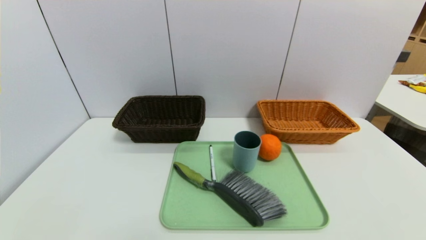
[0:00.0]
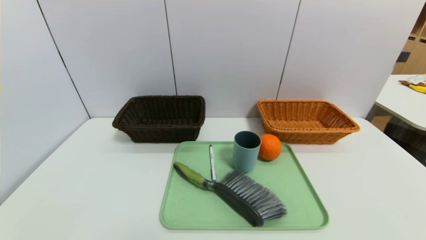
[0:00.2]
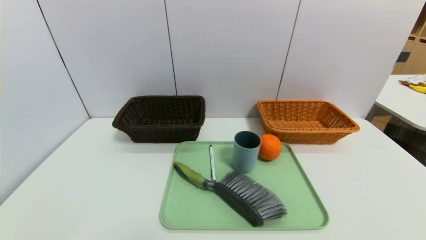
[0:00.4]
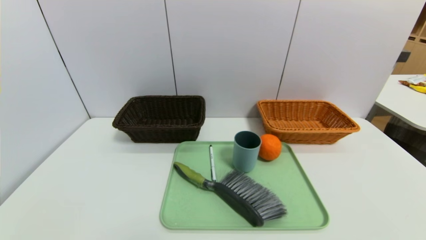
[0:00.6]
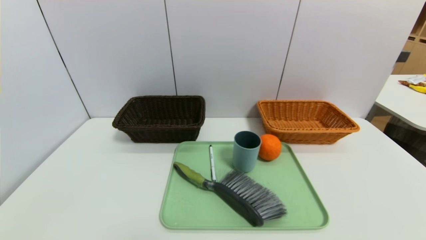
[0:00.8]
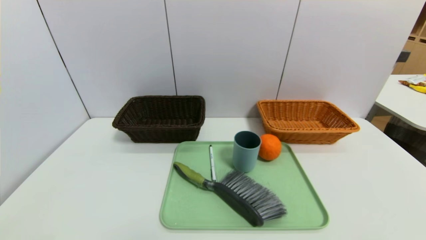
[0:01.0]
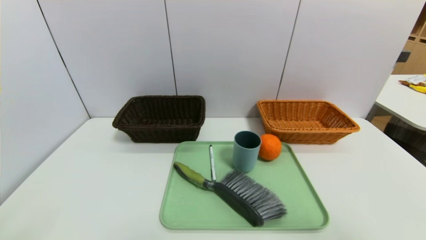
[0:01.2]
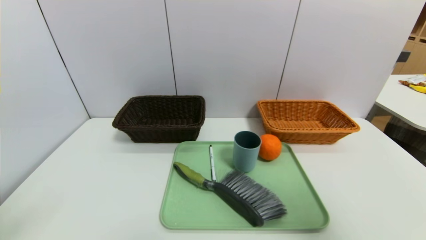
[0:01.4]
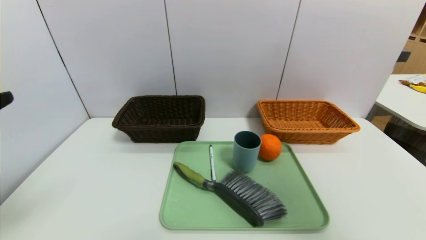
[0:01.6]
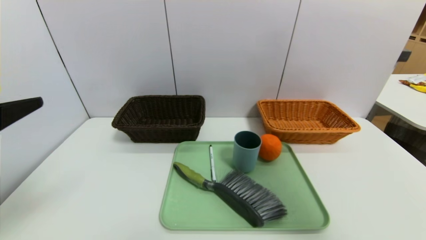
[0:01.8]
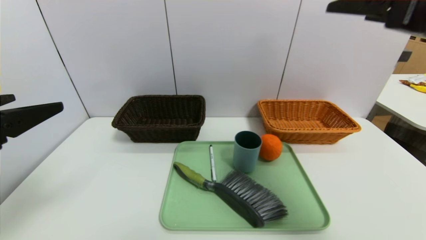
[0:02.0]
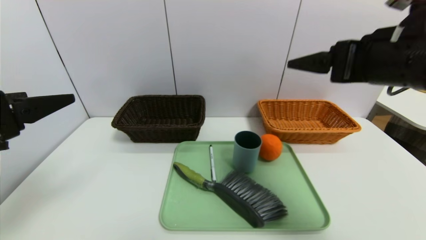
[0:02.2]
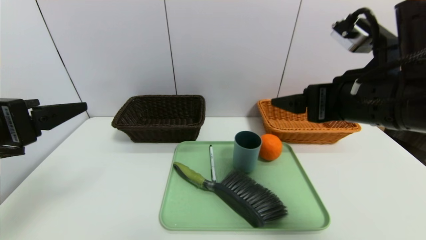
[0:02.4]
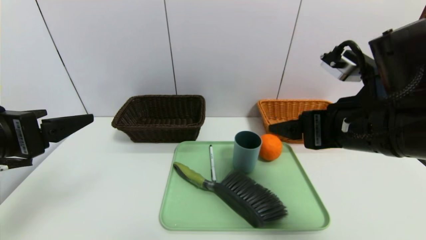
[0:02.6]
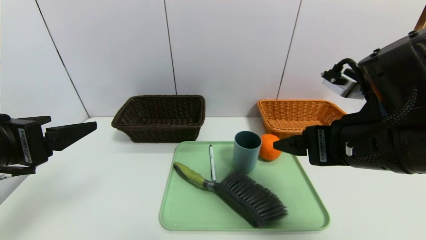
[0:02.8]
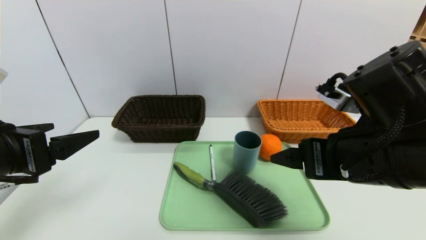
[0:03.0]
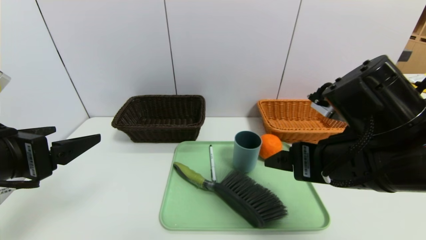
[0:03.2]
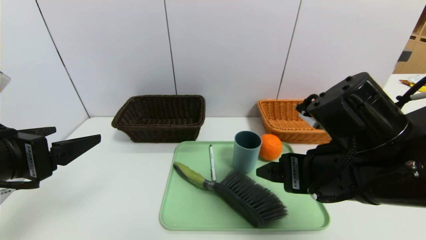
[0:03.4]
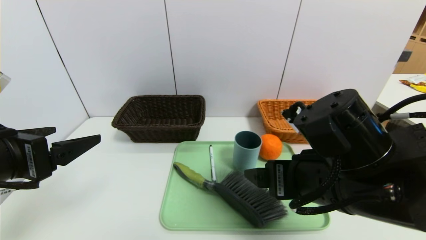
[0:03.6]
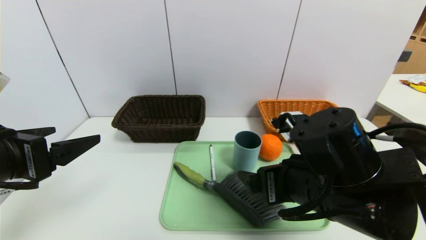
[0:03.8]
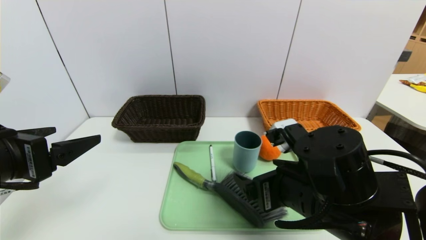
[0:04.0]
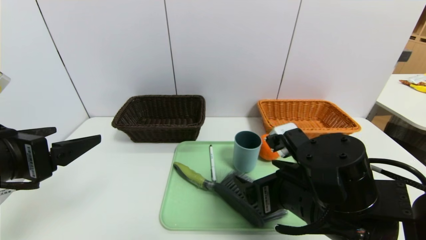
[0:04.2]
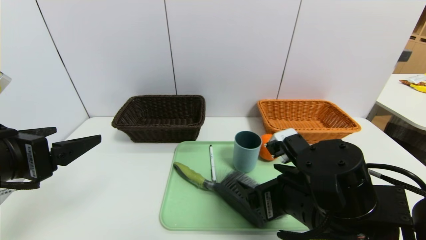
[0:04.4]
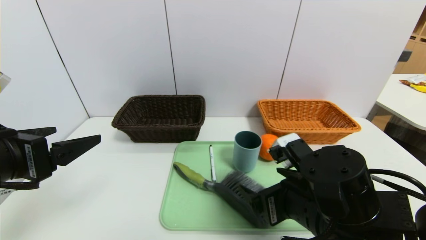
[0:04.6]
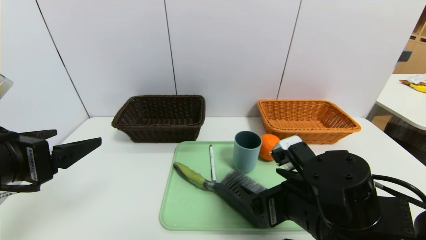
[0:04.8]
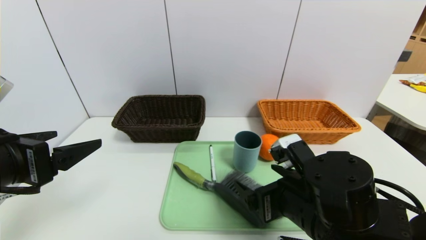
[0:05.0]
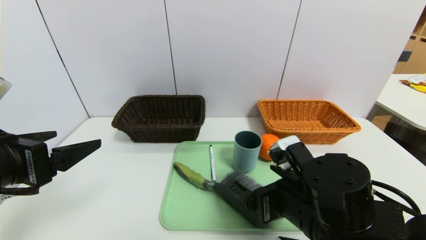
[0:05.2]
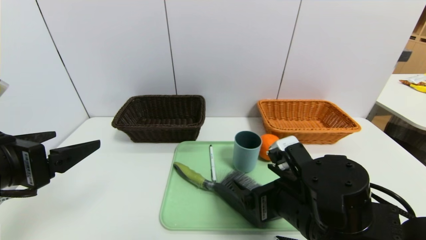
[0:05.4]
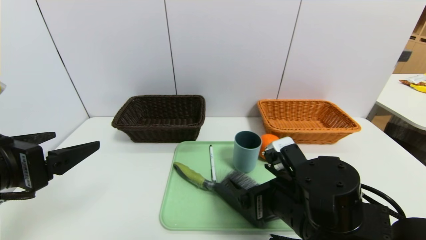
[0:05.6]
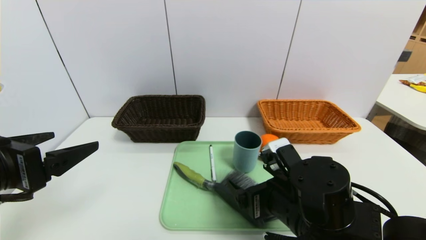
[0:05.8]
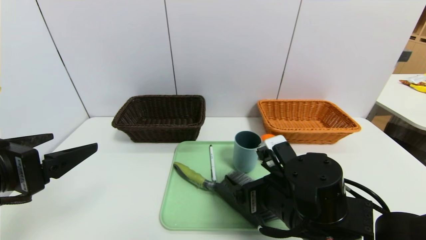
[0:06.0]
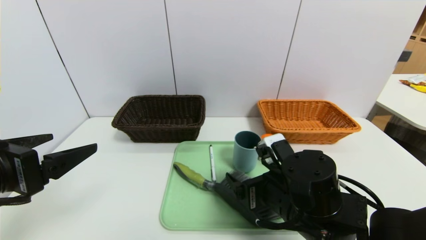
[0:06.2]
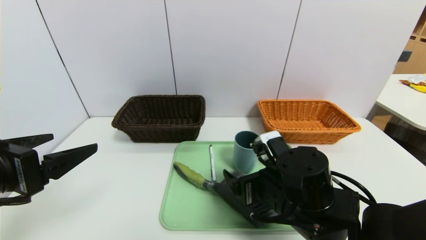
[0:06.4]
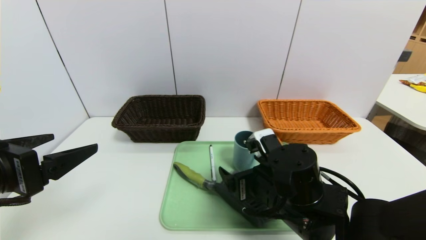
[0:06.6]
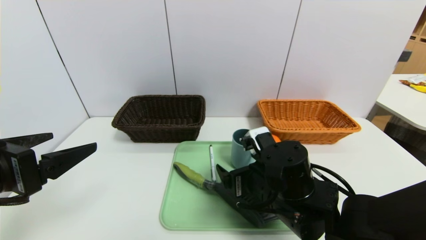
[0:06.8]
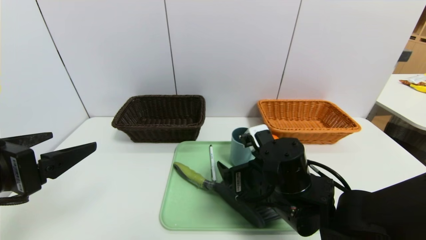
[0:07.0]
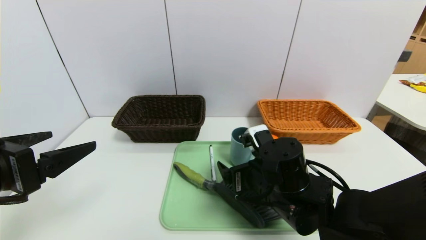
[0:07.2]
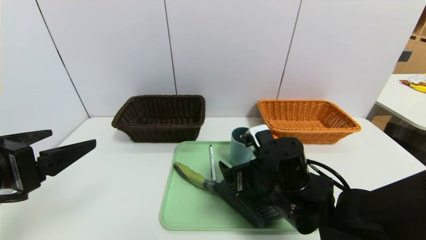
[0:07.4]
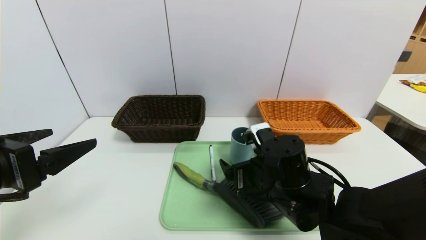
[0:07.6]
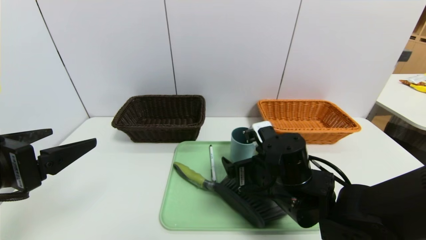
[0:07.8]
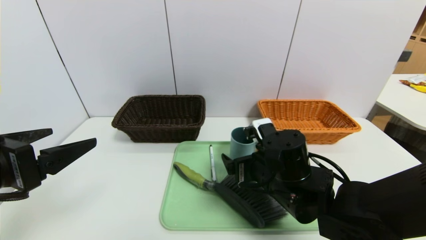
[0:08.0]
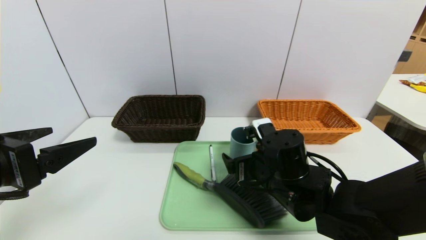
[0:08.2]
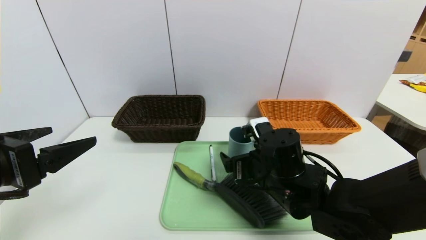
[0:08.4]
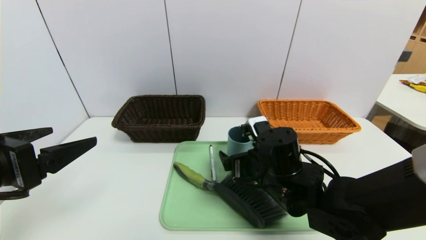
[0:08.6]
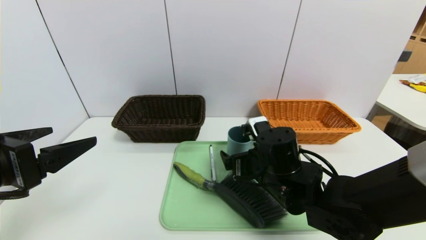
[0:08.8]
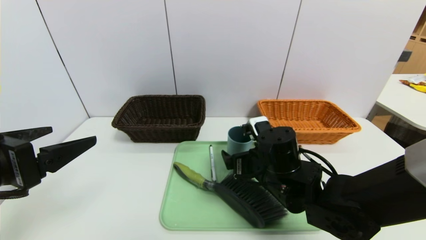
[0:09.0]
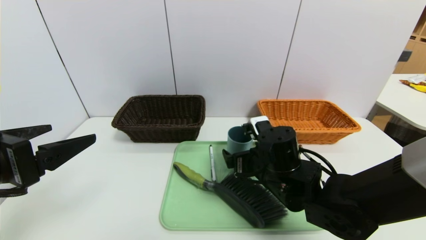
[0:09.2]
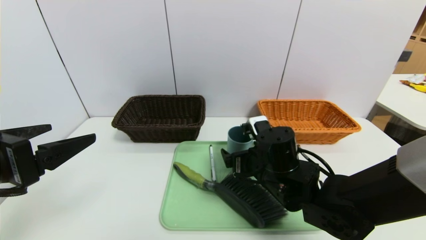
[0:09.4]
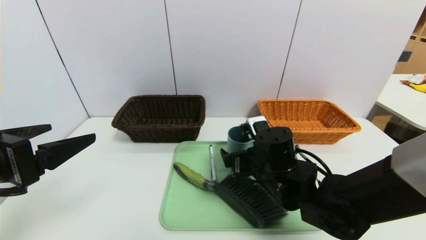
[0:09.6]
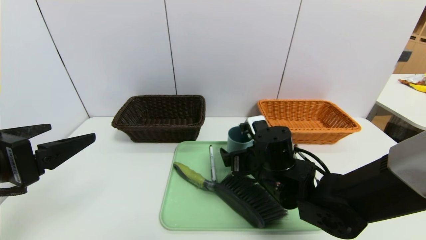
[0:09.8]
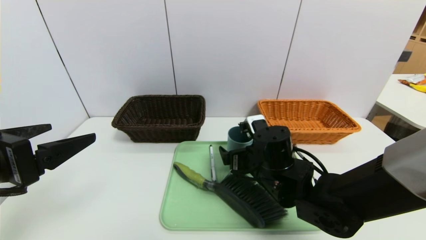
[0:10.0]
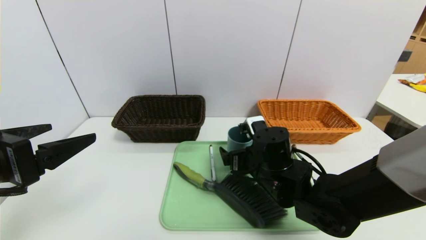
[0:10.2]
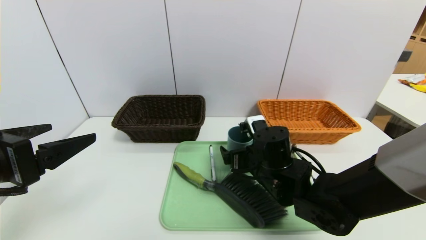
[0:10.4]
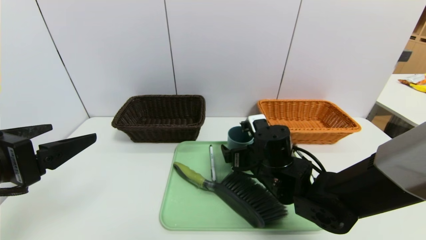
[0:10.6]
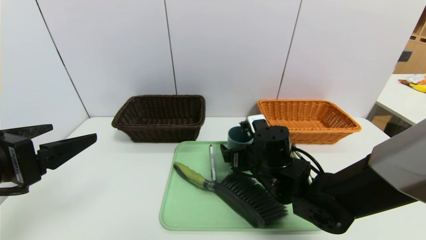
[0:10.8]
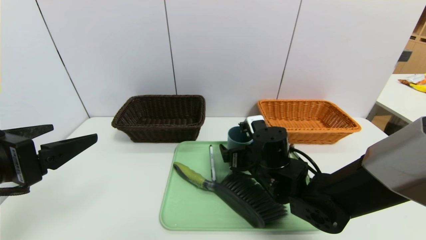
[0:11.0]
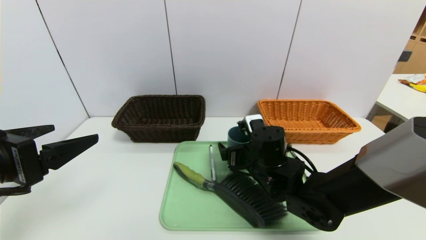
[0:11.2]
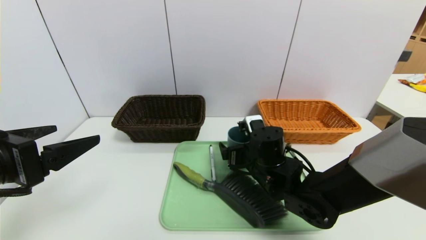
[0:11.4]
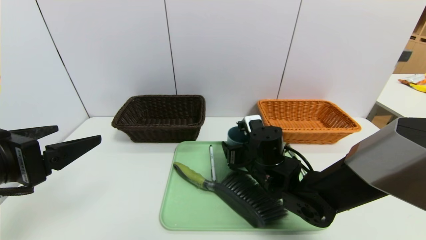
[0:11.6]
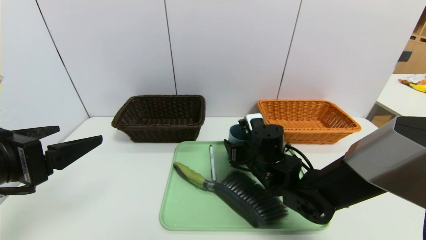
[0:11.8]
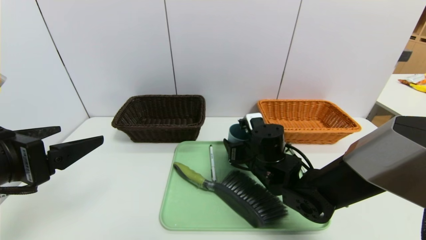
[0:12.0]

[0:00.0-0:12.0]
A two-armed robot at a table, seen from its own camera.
Task of the whole recording: place the food in the right basket with the right gripper, and place the non food items in the left basket with the left gripper.
0:00.0 to 0:01.6: The left gripper moves upward and forward, roughly 25 cm, while the right gripper shifts approximately 35 cm upward.
0:01.6 to 0:03.0: The left gripper is displaced forward by approximately 5 cm, while the right gripper travels downward and to the left by some 20 cm.
0:03.0 to 0:04.4: The right gripper moves downward, approximately 10 cm.
0:04.4 to 0:06.0: The grippers make only small movements.
0:06.0 to 0:07.6: The grippers move only a little.
0:07.6 to 0:10.4: There are only small adjustments of the grippers.
0:10.4 to 0:12.0: The right gripper closes.

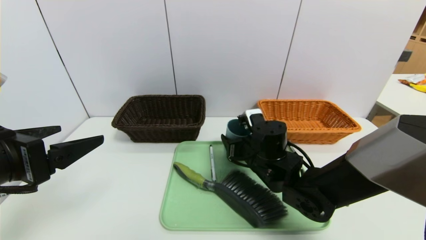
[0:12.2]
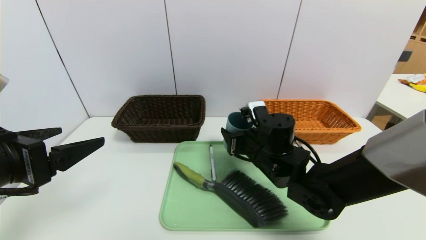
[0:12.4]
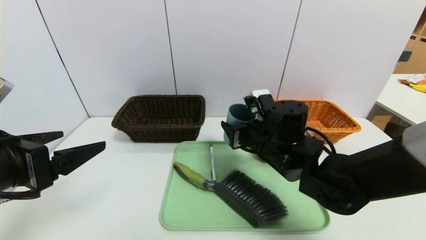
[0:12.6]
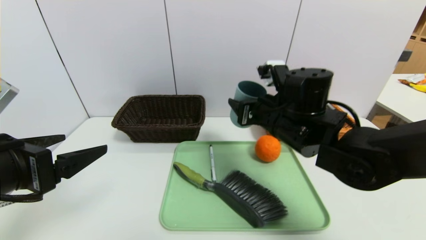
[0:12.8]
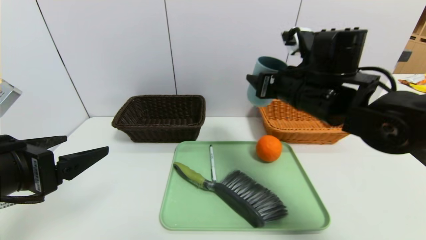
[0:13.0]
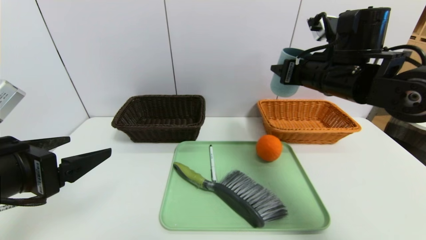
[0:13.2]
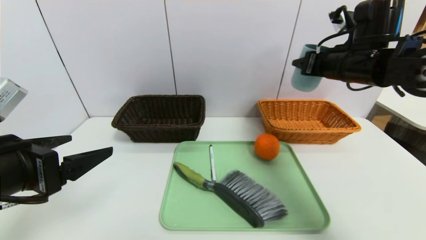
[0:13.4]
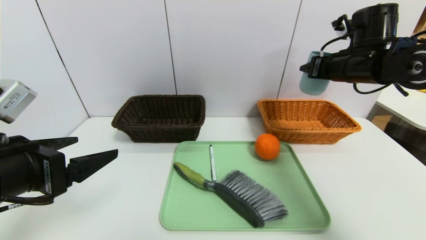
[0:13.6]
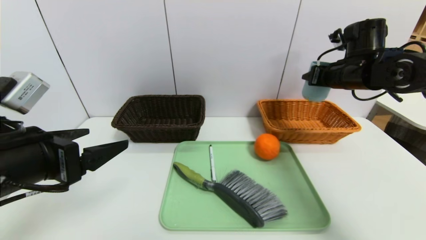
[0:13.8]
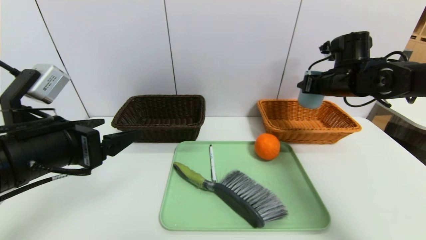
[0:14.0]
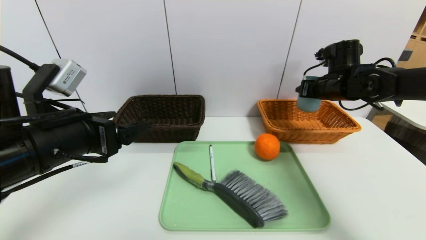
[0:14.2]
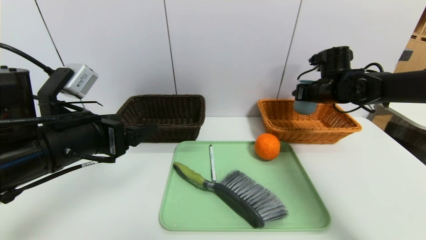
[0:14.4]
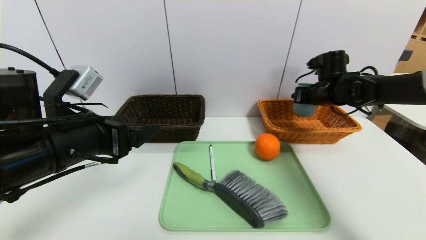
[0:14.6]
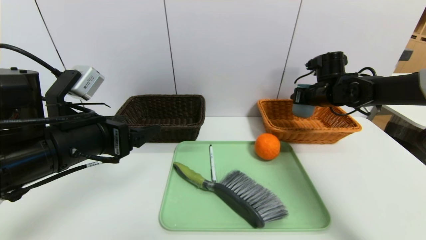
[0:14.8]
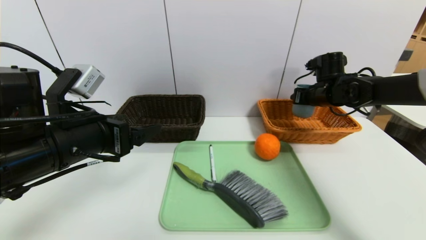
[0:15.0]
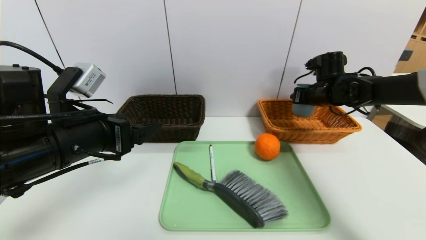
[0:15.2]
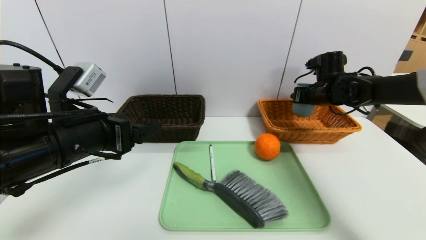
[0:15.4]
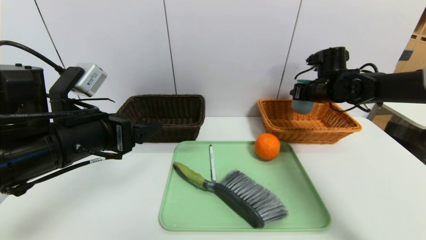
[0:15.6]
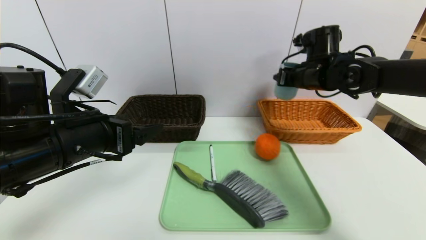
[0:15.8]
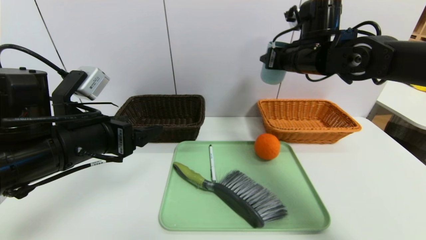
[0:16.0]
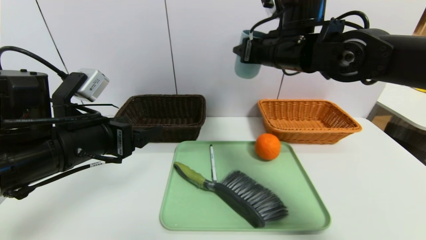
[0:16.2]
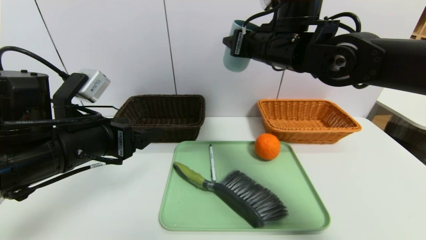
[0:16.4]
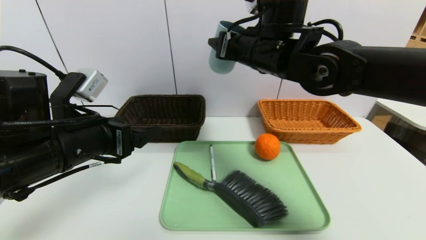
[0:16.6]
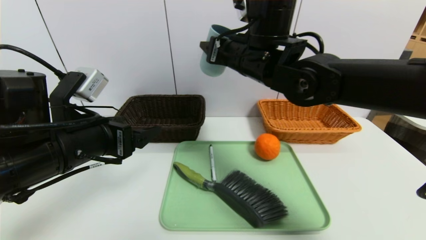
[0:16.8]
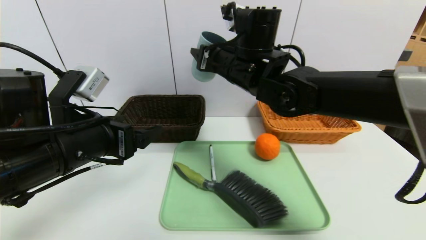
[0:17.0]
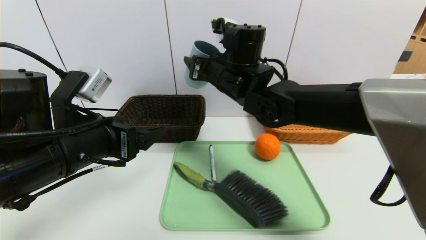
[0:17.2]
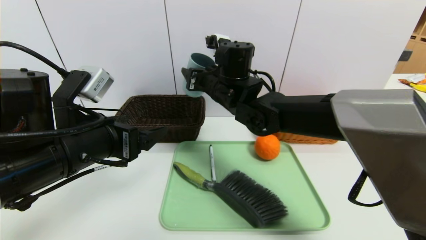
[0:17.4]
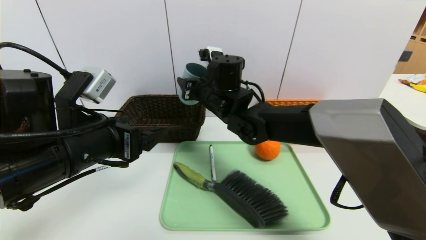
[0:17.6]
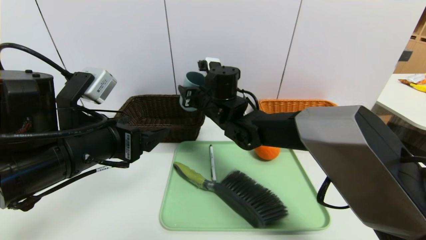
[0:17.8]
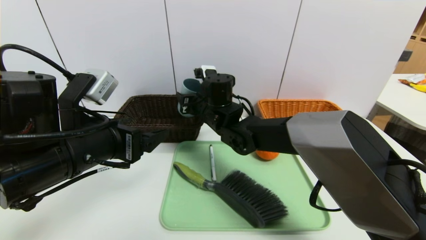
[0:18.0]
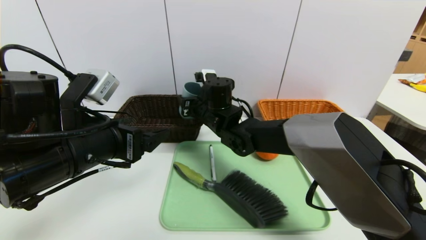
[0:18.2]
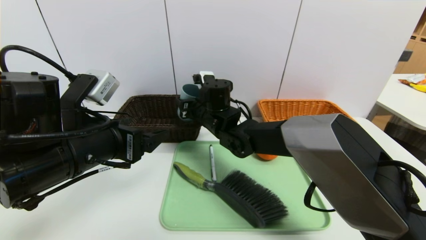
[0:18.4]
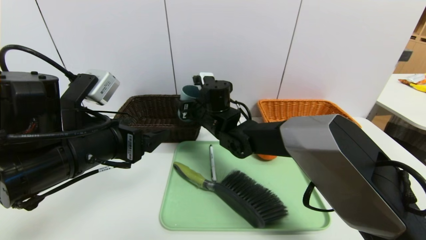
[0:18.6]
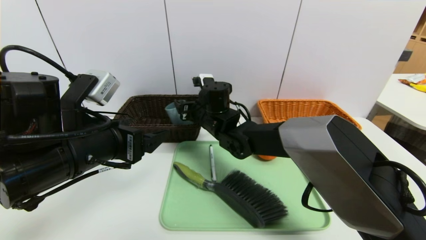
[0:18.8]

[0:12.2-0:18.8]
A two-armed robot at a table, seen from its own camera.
Task of the whole recording: place the food in the right basket with the right gripper, and place the non food items in the left basket with the left gripper.
0:12.2 to 0:13.8: The right gripper is displaced to the right, upward and forward by roughly 25 cm.
0:13.8 to 0:15.4: The left gripper goes some 5 cm forward; the right gripper heads downward and forward, covering about 10 cm.
0:15.4 to 0:17.2: The right gripper is displaced to the left by roughly 25 cm.
0:17.2 to 0:18.8: The right gripper travels downward by about 10 cm, and opens.
